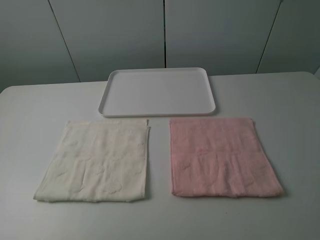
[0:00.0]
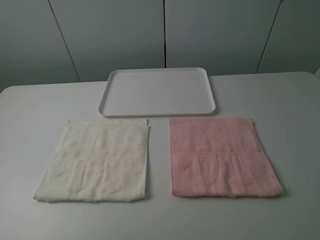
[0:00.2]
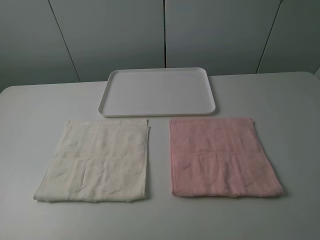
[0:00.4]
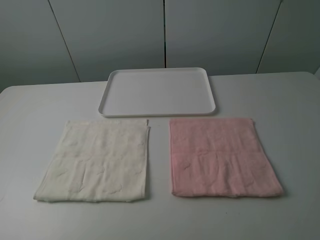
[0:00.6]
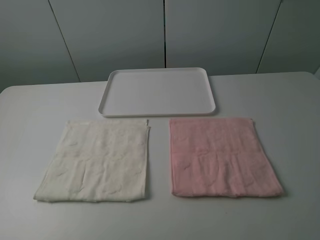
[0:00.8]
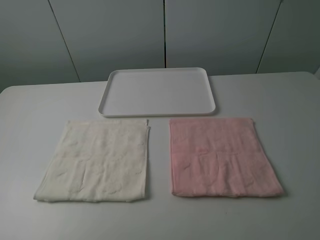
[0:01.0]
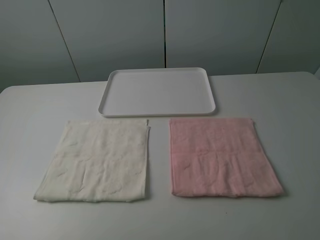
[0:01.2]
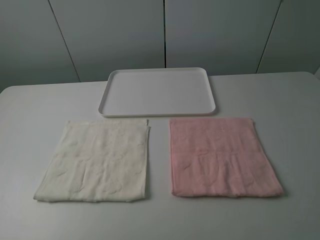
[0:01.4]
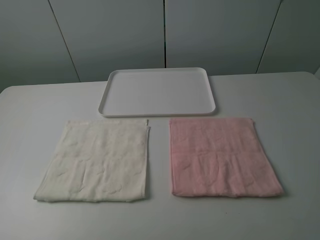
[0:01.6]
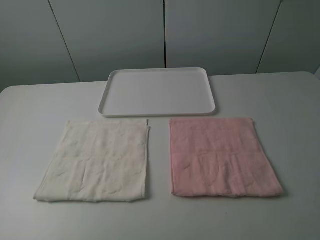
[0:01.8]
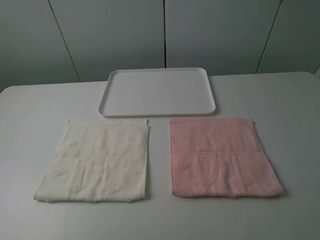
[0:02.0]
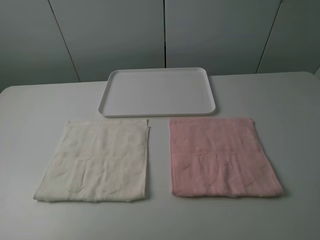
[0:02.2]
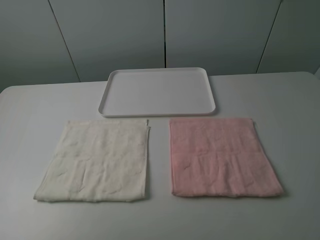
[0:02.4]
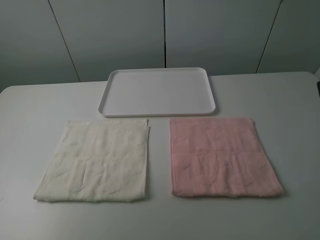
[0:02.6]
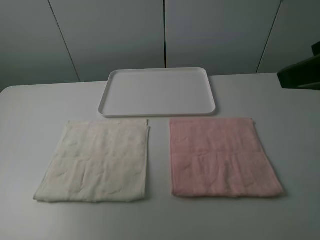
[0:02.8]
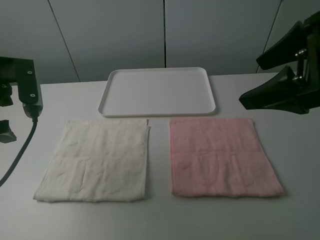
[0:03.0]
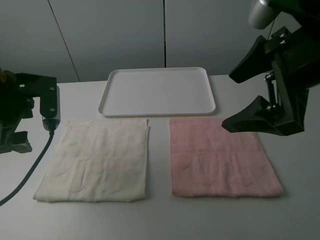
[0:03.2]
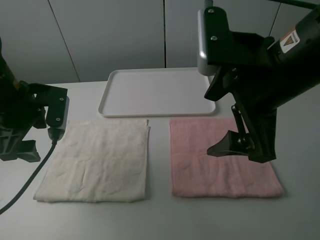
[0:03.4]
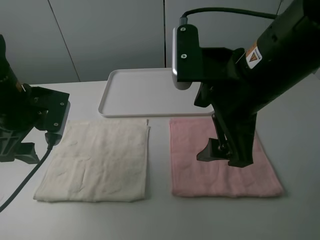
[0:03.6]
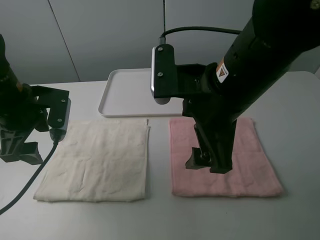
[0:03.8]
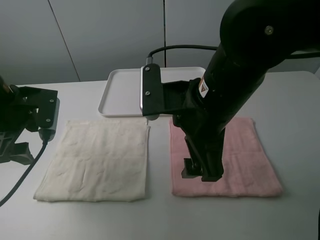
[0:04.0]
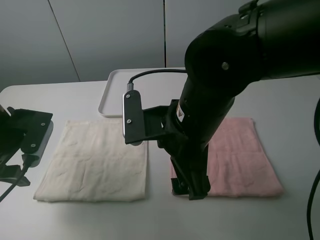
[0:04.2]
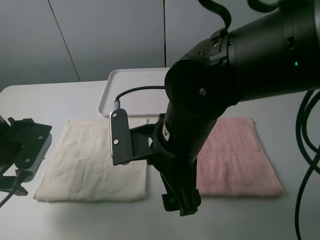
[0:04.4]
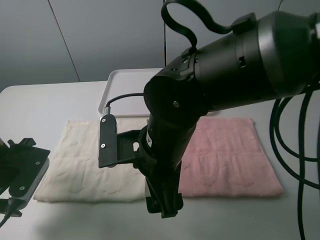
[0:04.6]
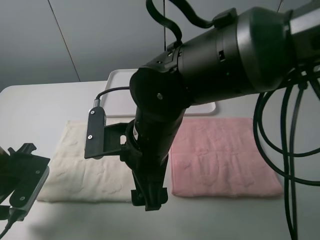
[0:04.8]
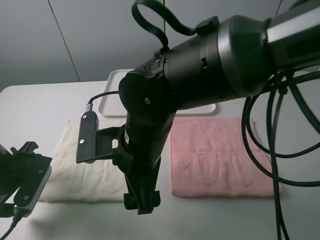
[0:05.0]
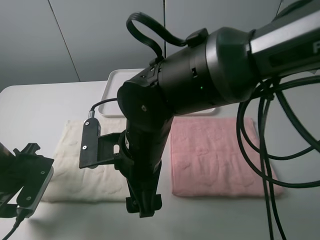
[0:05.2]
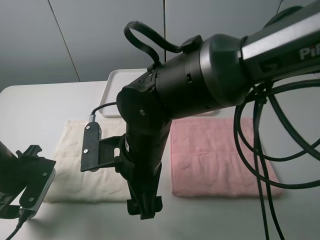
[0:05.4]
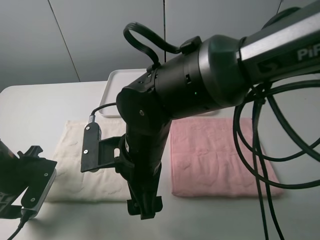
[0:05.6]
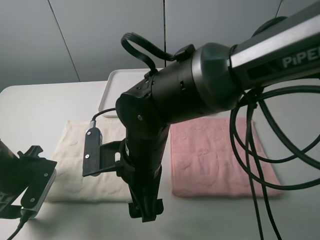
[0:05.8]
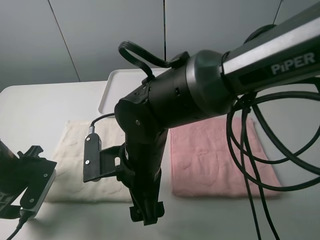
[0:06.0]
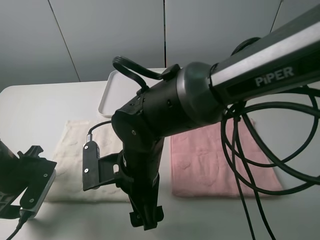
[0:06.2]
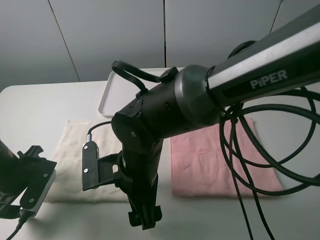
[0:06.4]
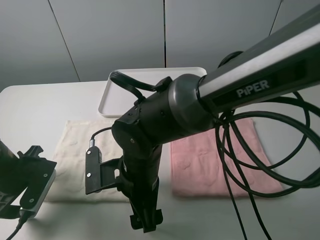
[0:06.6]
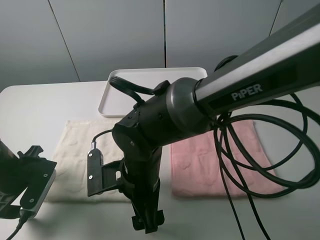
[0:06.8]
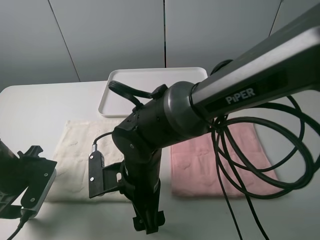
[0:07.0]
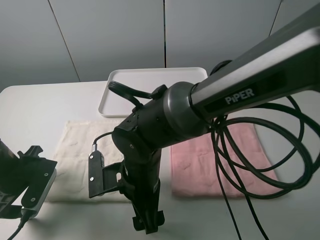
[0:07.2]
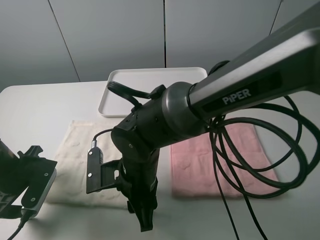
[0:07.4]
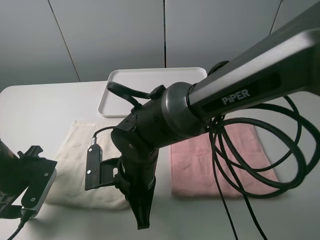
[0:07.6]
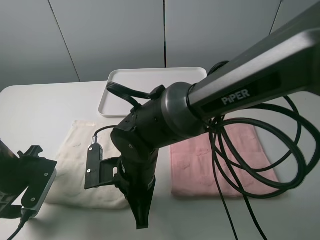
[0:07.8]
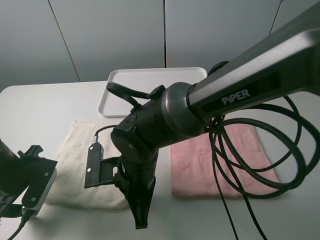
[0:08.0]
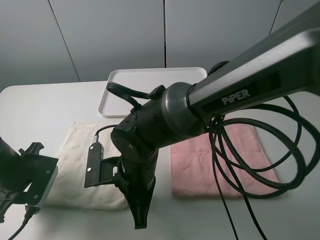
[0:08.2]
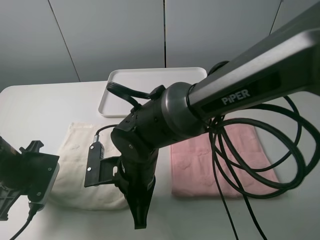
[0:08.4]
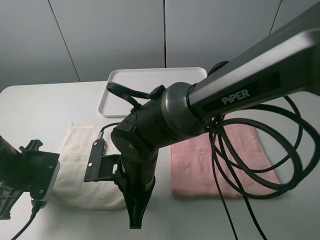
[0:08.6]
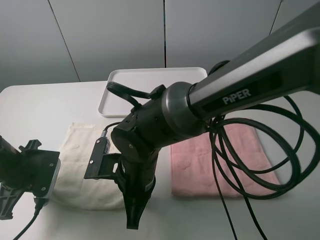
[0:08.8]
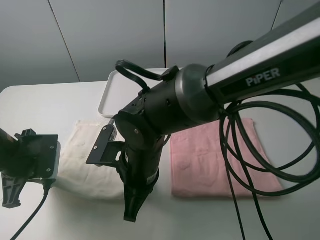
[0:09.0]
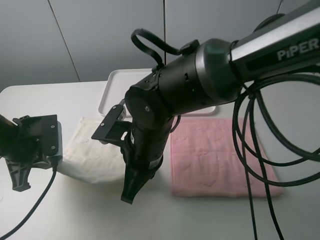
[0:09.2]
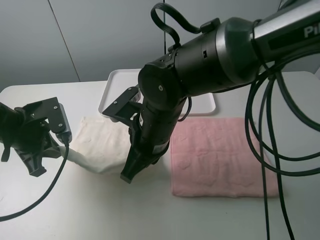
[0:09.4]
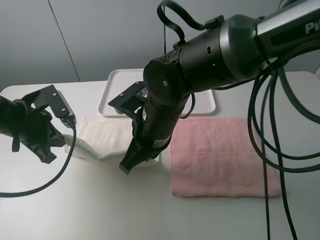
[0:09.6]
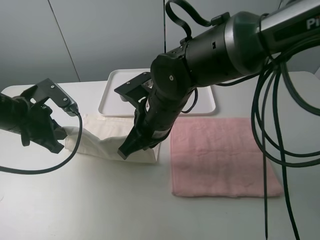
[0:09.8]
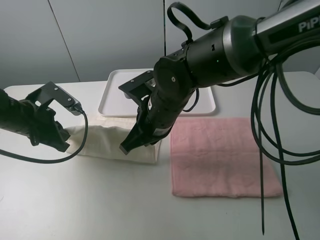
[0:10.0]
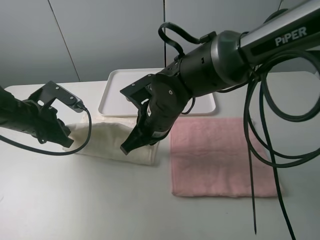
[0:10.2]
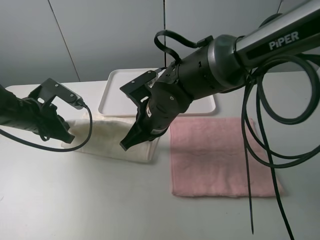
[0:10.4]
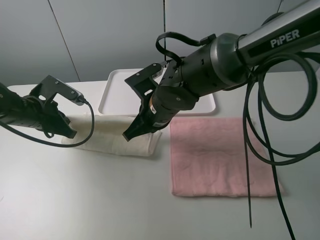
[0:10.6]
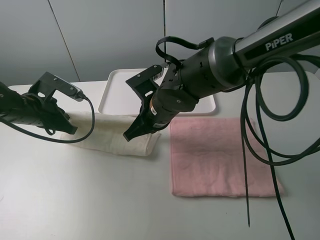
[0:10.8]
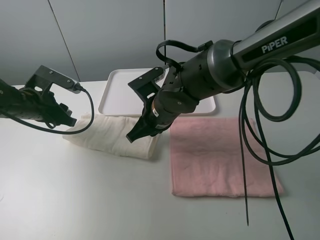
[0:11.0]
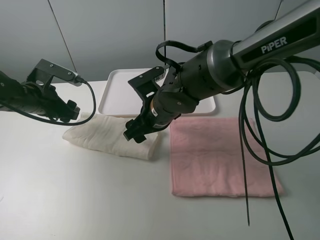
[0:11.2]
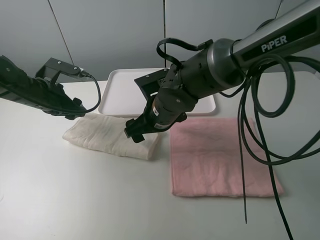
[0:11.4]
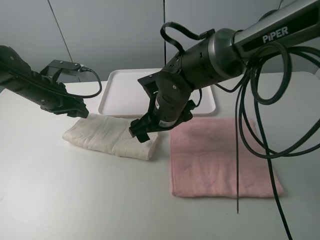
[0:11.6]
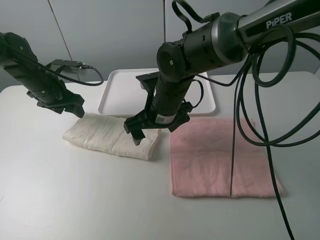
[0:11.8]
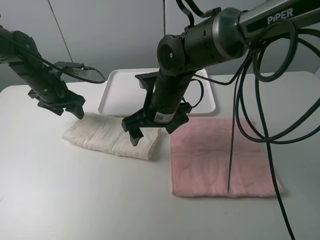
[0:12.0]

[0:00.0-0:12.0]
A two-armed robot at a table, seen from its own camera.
Task of the whole recording: fold one of the towels by two grippers and place it on the tray,then fold another towel by two grippers and place it on the folded towel.
Step, 0:00.0 to 0:08.4: Grasp the white towel with the left gripper.
Step, 0:08.8 to 0:11.2: Fold the white towel upwards with the left gripper.
0:00.0 to 0:01.6: Neither gripper changes place.
0:01.6 to 0:03.0: Both grippers move forward, roughly 20 cm.
0:03.0 to 0:04.4: The left gripper goes roughly 10 cm downward, while the right gripper is displaced to the left and downward by roughly 20 cm.
0:04.4 to 0:06.0: The left gripper heads downward, covering about 5 cm. Meanwhile the right gripper heads downward and to the left, covering roughly 5 cm.
0:06.0 to 0:07.6: The right gripper closes.
0:07.6 to 0:09.0: The left gripper closes up.
0:09.0 to 0:10.4: The two grippers go approximately 10 cm forward.
0:10.4 to 0:12.0: The right gripper opens; the left gripper heads forward, covering some 10 cm, and opens.

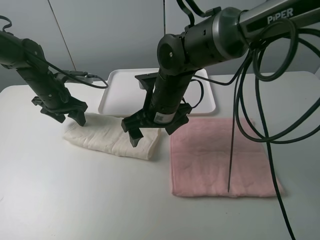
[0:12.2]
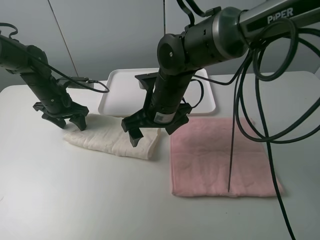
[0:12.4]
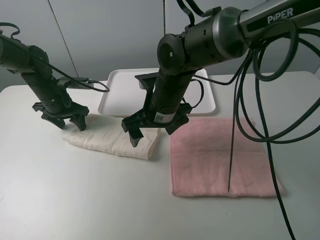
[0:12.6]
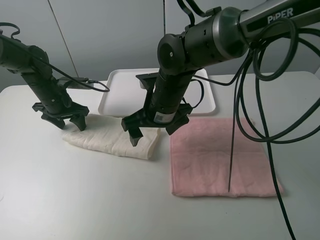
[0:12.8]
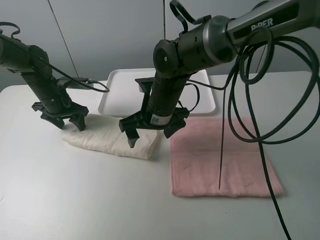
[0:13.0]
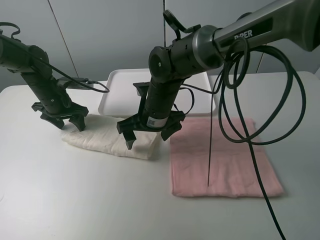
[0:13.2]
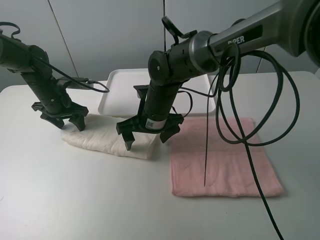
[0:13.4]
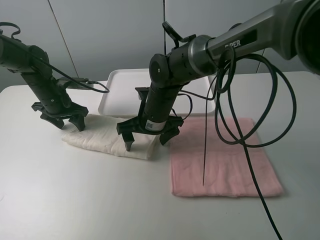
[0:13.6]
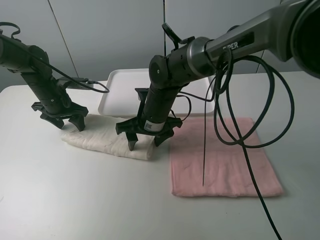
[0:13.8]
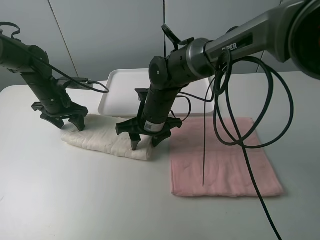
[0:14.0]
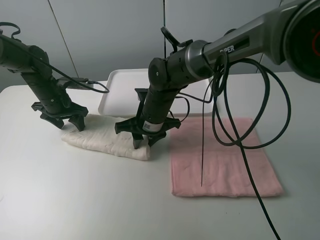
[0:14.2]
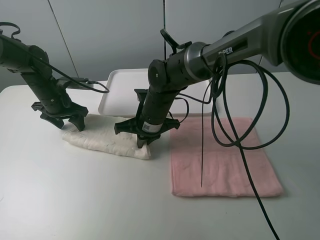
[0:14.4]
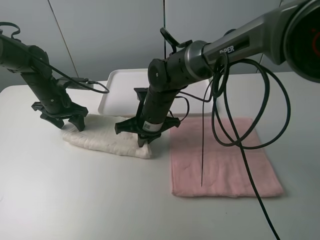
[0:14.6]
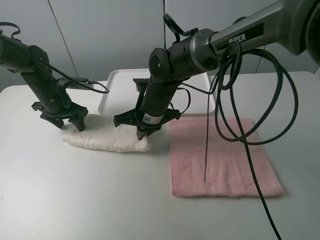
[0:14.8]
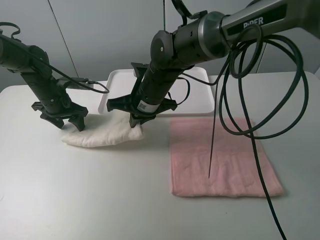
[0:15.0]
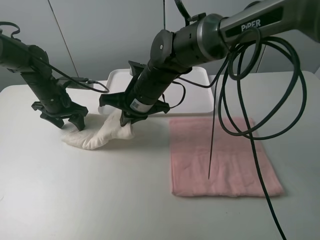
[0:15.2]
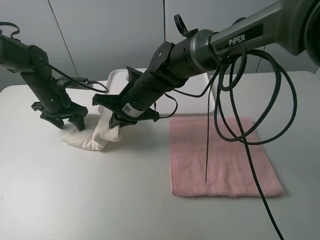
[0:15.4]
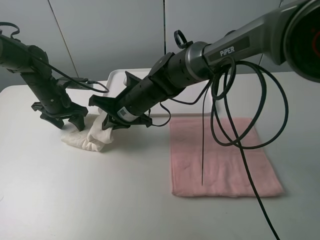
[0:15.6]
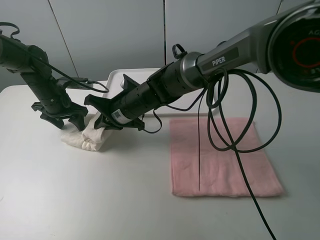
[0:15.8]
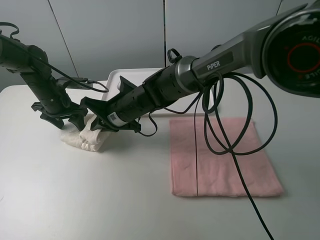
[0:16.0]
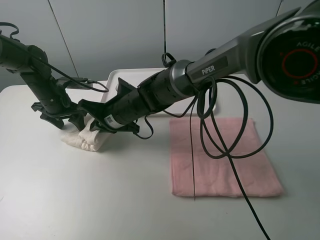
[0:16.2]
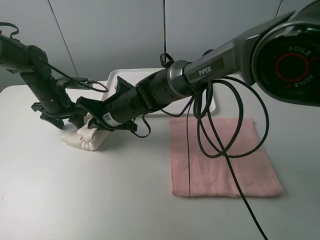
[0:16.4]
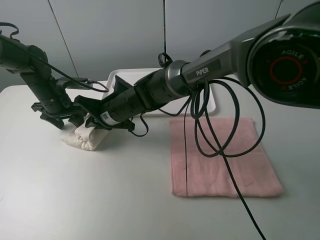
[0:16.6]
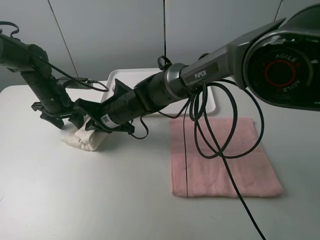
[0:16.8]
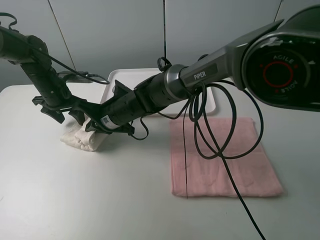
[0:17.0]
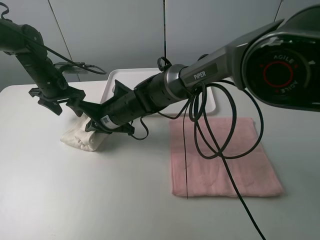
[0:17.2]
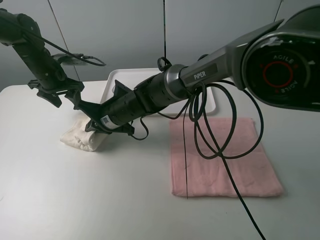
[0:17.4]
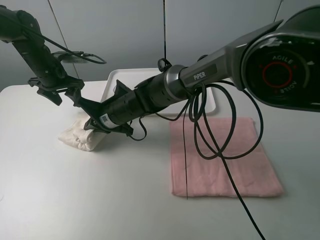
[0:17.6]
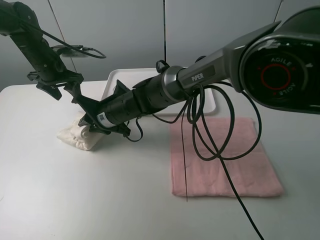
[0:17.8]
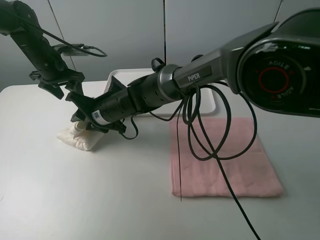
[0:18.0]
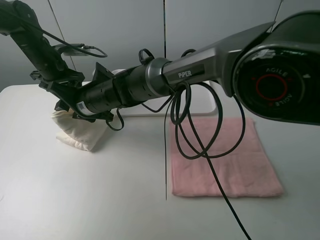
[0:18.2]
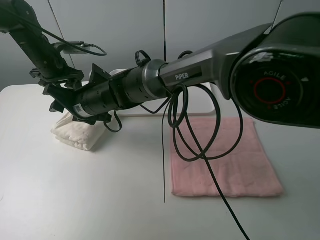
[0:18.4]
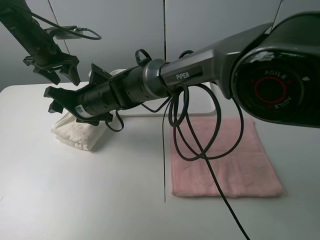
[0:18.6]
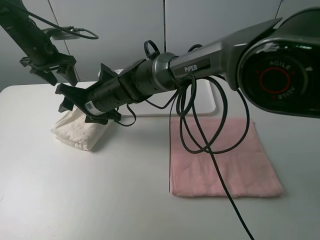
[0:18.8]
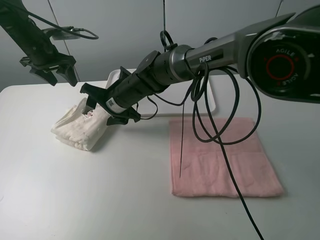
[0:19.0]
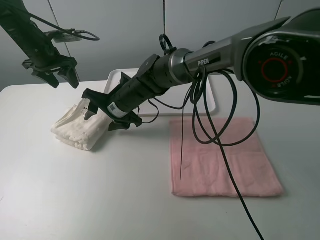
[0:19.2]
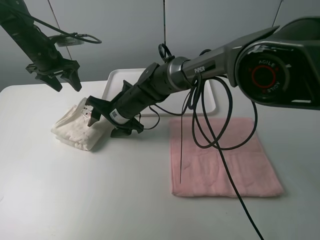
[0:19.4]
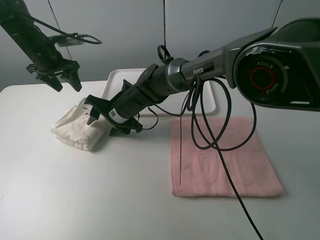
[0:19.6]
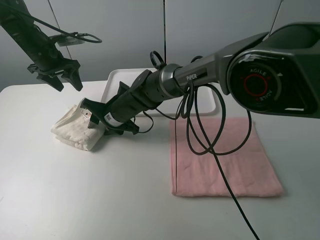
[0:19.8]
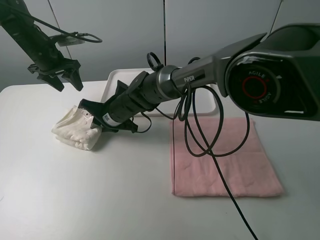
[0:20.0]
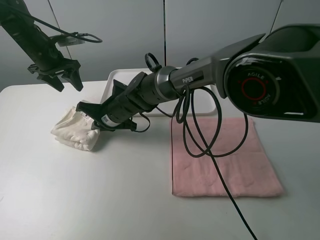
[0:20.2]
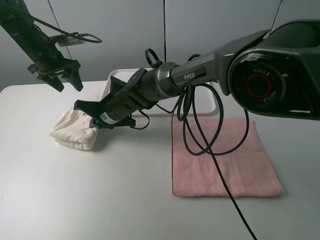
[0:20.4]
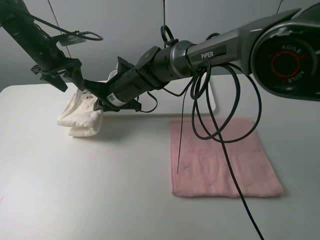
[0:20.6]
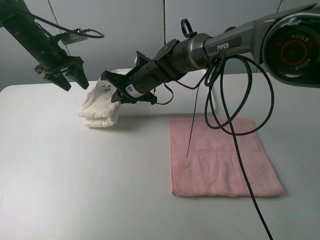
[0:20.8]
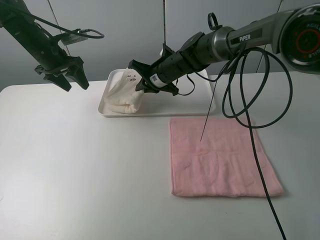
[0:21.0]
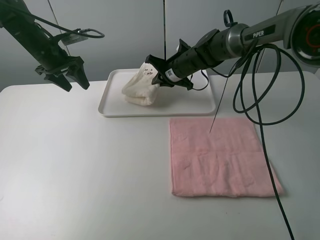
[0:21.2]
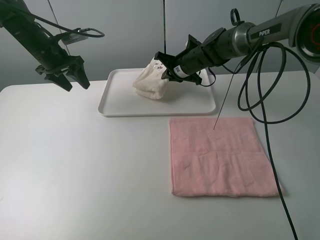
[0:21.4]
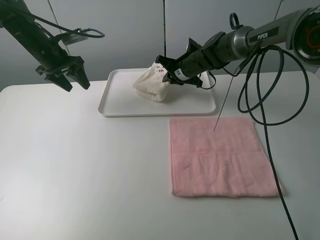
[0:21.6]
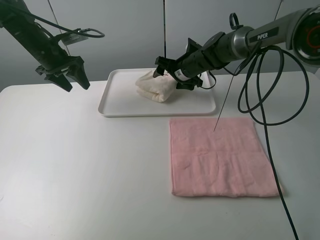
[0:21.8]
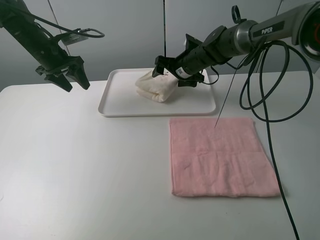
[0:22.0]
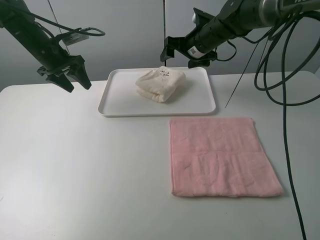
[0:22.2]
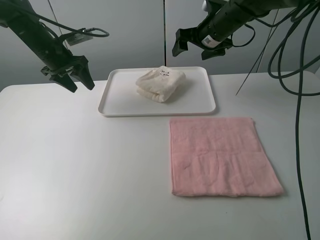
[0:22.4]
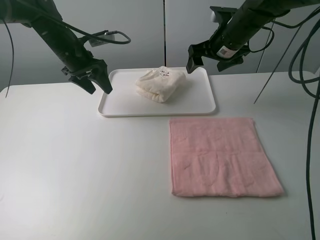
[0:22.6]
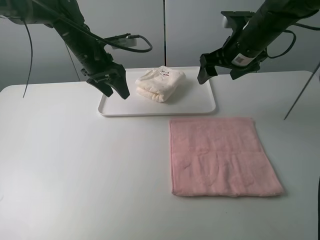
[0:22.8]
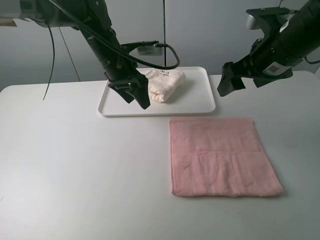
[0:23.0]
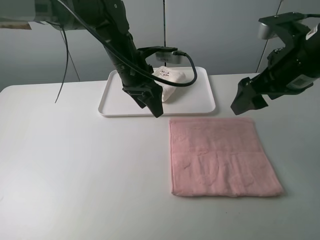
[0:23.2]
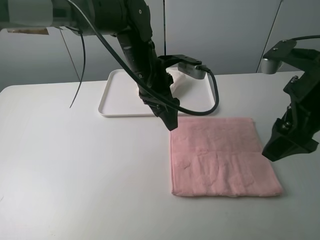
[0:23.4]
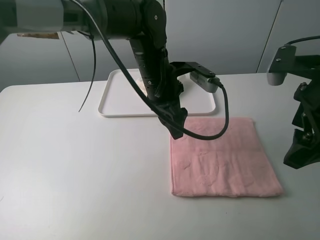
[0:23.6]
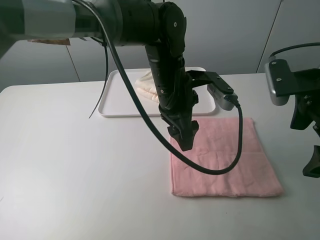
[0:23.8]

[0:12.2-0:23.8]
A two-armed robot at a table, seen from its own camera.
Task of the whole recording: fold one of the towels by two grippers and place it on the tray,then fold another towel by two grippers and place it on the folded towel.
Step, 0:13.2 to 0:18.4: Fold the white towel from right to left with right gripper.
Step, 0:18.6 to 0:20.0: Grasp the white towel with the right gripper.
Step, 0:20.2 to 0:22.0: Move the white towel to the plate with the right gripper.
0:12.2 to 0:13.6: The right gripper moves about 5 cm.
0:13.6 to 0:15.0: The right gripper closes its fingers.
0:15.0 to 0:16.6: The right gripper shifts approximately 10 cm to the left and downward.
0:16.6 to 0:18.0: The right gripper opens its fingers. Meanwhile the left gripper moves upward, roughly 5 cm.
0:18.0 to 0:19.4: The grippers stay close to where they were, moving slightly.
0:19.4 to 0:21.0: The right gripper moves to the right and forward, roughly 15 cm, and closes up.
0:21.0 to 0:22.4: The right gripper moves to the right and upward, approximately 15 cm, and opens up.
0:22.4 to 0:23.8: The right gripper moves backward, about 25 cm; the left gripper shifts approximately 35 cm to the right and backward.
